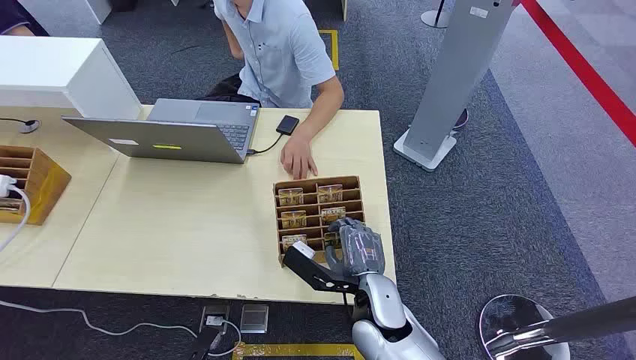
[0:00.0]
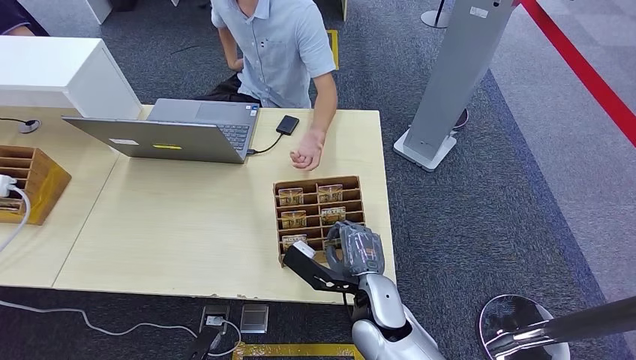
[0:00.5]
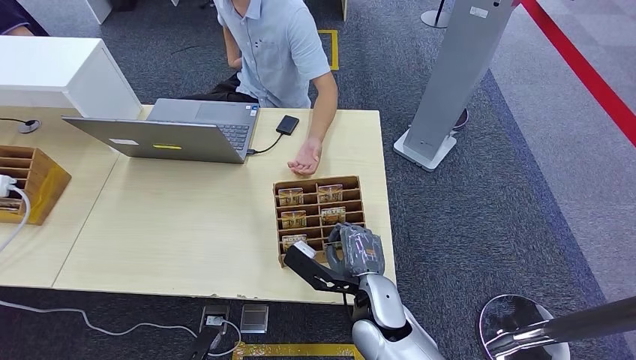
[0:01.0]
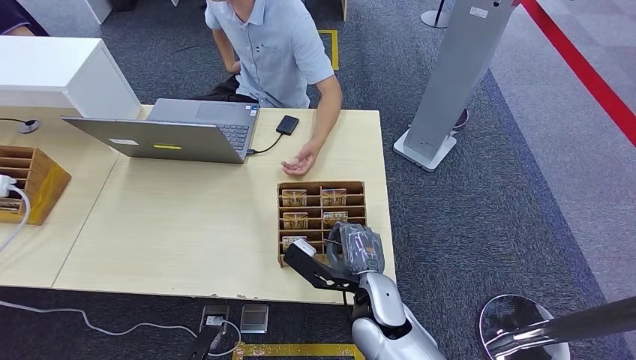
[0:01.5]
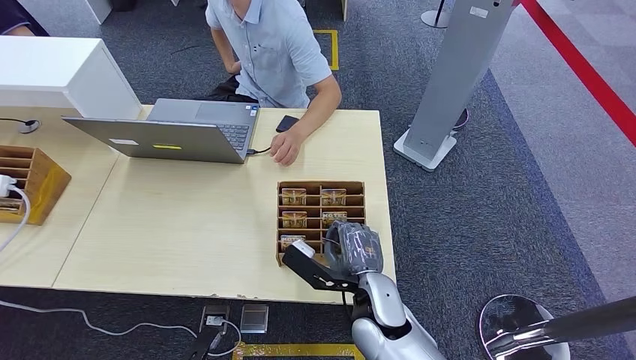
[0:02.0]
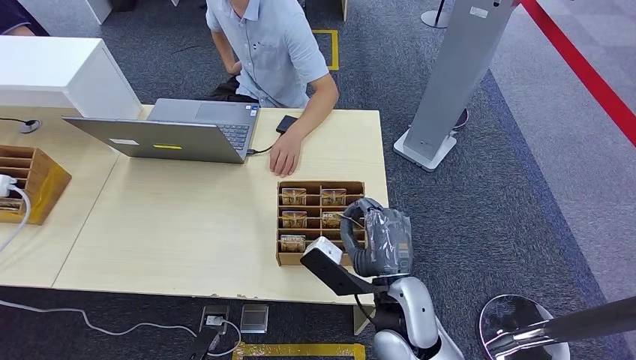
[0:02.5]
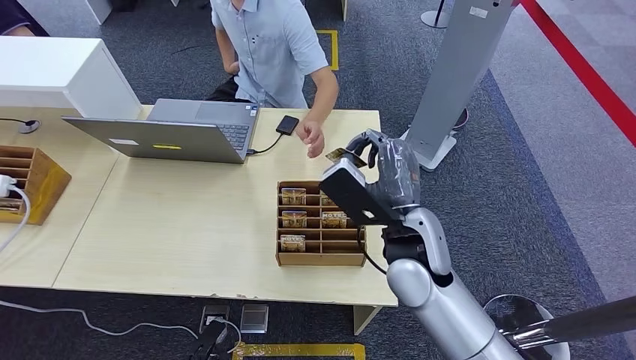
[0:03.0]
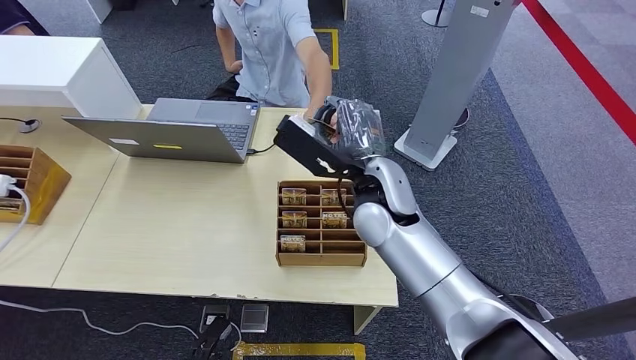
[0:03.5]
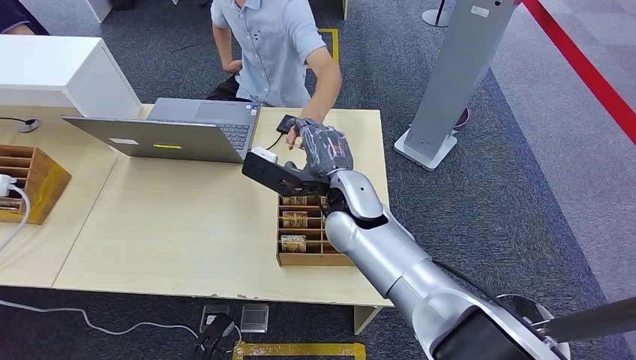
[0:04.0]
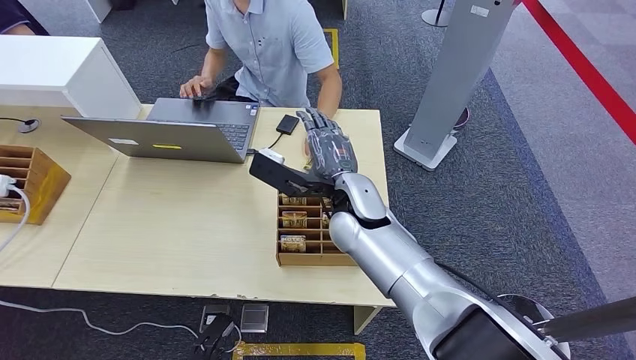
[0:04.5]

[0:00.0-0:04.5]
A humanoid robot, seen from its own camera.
Step, 0:00.0 to 0:02.5: Pick up the key card from the card box.
Step, 0:03.5 to 0:04.5: Hand the key card to the target.
0:02.0 to 0:04.5: The right hand goes about 20 cm forward, upward and to the left.
